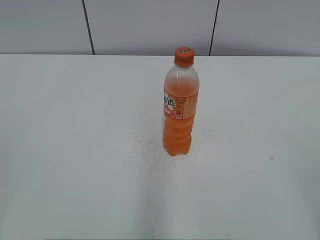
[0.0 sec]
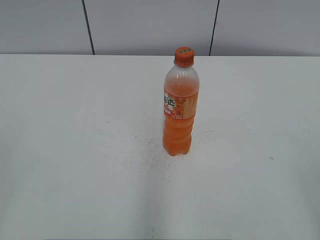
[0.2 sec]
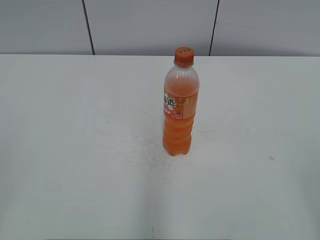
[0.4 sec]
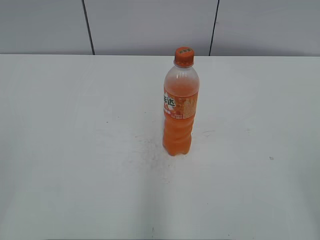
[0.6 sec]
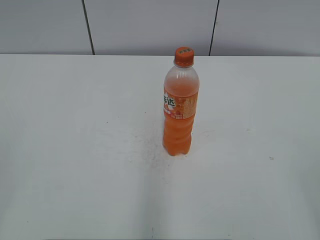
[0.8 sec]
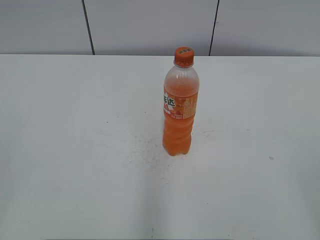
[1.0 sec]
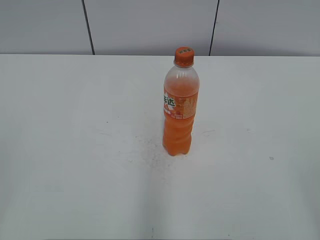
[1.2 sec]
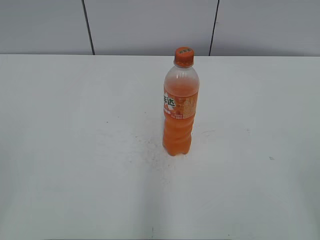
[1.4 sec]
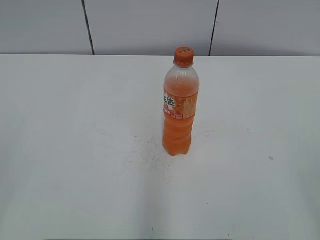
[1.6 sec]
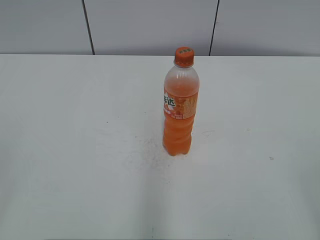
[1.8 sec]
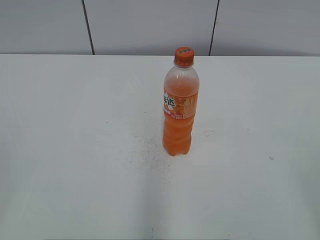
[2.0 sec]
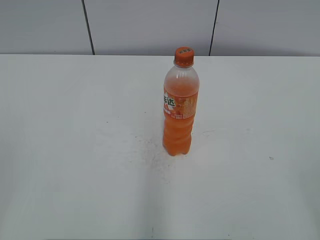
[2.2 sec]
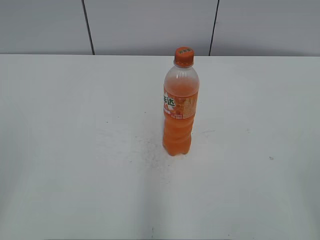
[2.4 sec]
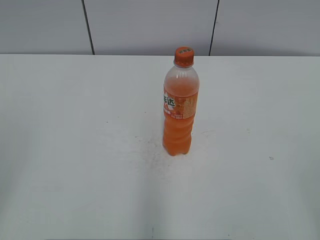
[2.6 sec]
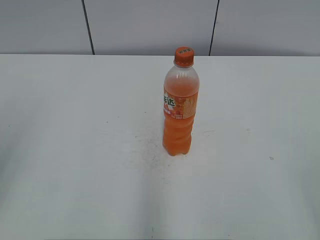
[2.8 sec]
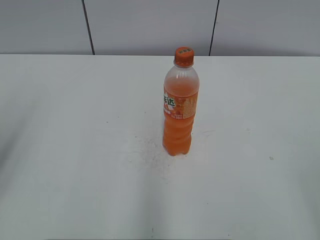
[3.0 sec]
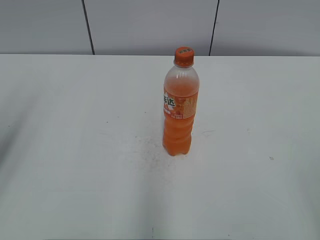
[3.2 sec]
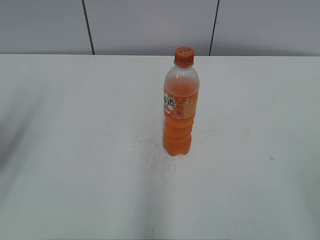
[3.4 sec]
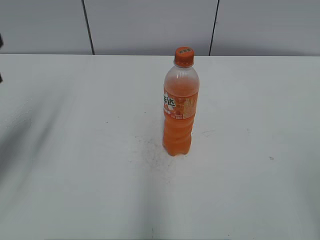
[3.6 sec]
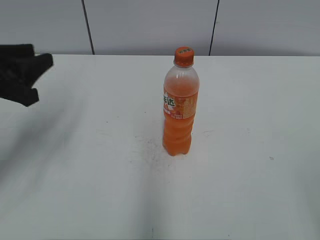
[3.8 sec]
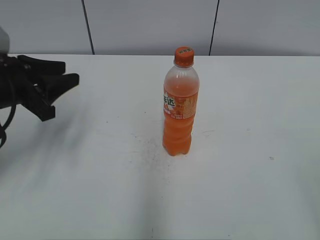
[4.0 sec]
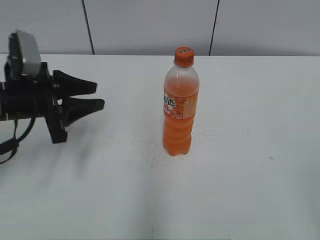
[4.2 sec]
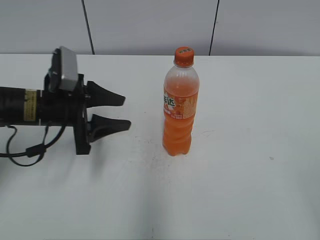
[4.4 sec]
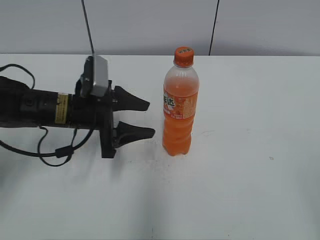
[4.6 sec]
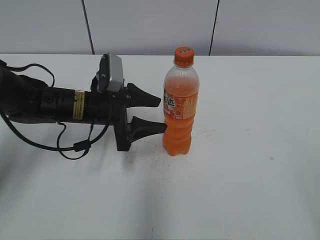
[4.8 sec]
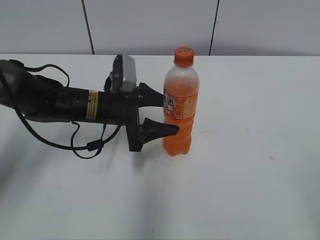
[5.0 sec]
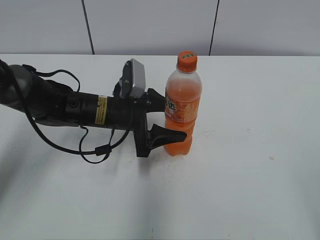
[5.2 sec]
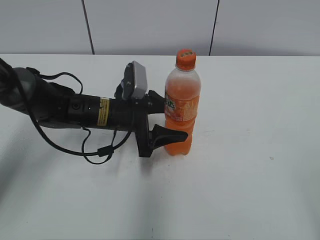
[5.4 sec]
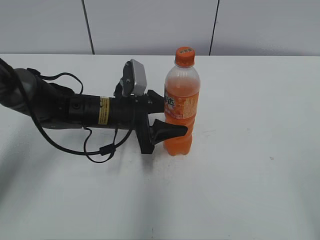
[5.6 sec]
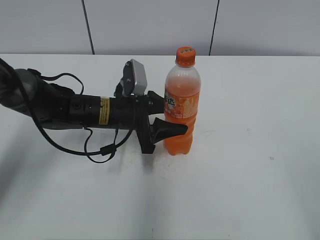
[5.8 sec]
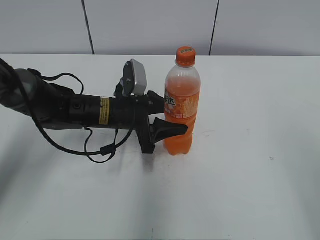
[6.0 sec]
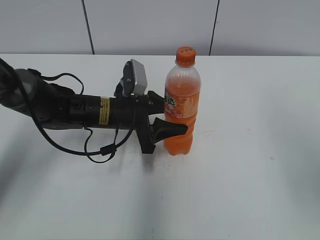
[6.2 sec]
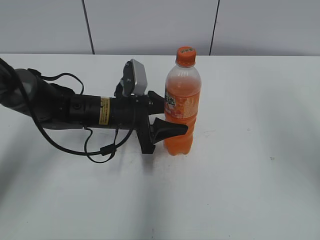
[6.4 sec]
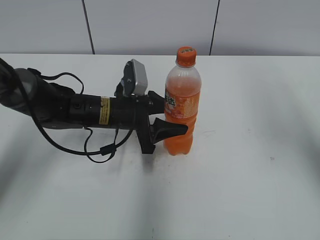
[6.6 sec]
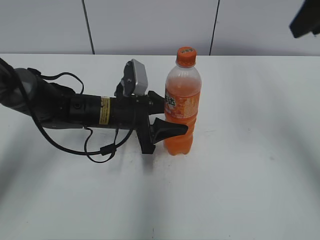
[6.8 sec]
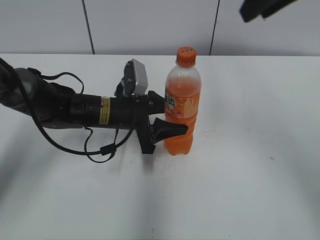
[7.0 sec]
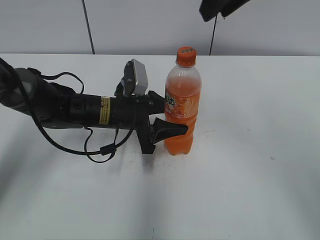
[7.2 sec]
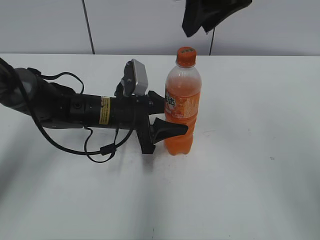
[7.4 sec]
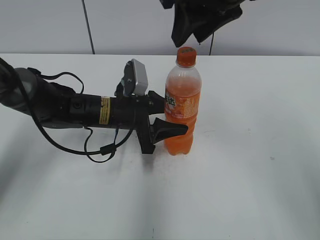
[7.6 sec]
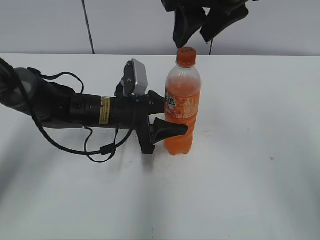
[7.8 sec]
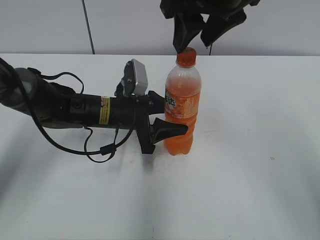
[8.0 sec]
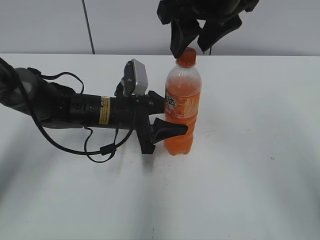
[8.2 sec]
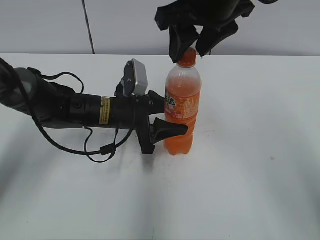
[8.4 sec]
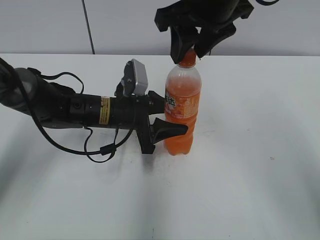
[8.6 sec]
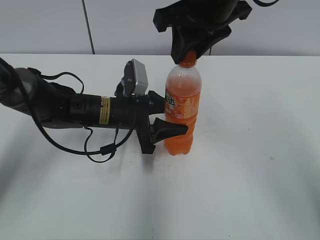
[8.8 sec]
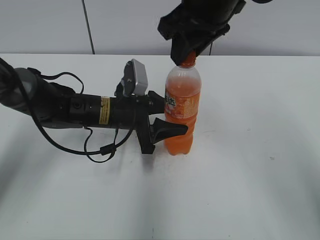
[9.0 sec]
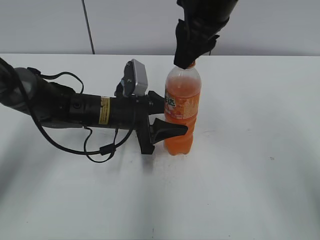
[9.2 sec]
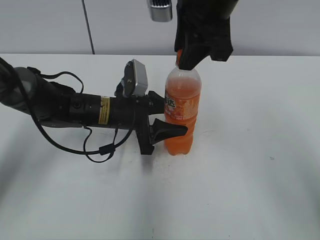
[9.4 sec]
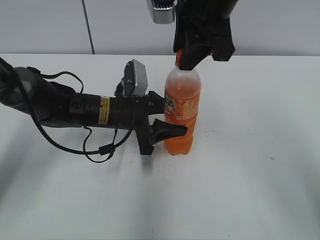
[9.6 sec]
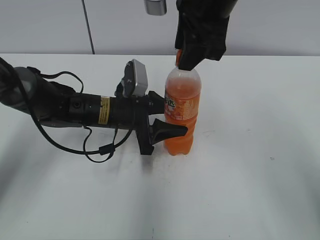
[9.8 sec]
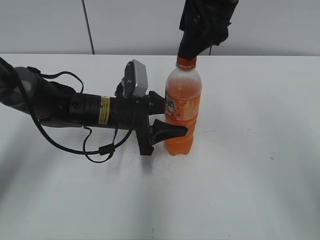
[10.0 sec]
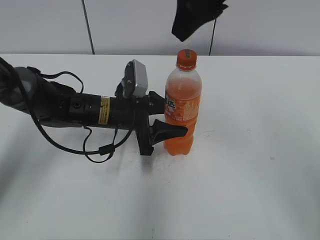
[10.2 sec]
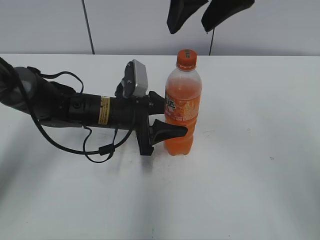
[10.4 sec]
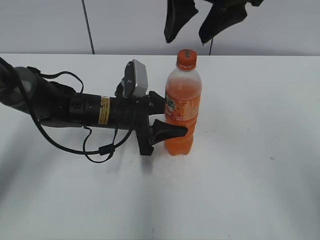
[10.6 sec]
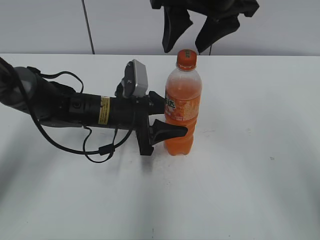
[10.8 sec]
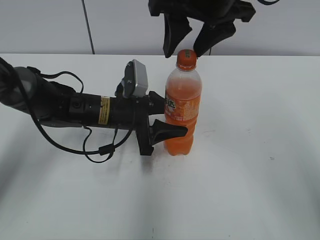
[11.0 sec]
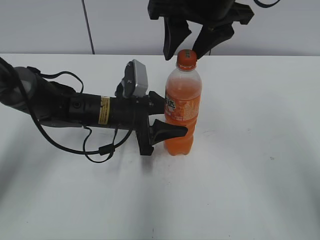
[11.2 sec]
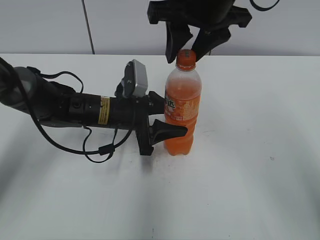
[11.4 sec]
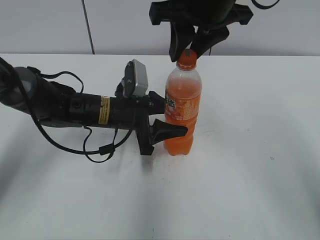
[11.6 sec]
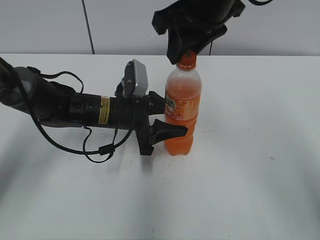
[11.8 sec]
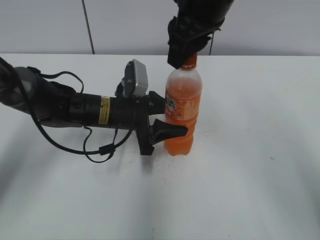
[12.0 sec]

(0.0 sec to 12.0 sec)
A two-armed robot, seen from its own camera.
Step, 0.0 sec - 5.6 sec: Grab the Mirinda with the left hand.
3.0 sec - 4.4 sec: The left gripper heads forward, downward and to the right, covering approximately 25 cm.
4.4 sec - 6.0 sec: The left gripper moves to the right, approximately 10 cm. Meanwhile the right gripper moves some 5 cm, and closes its fingers.
6.0 sec - 7.6 sec: The right gripper moves forward and to the left, about 35 cm.
7.6 sec - 9.0 sec: The right gripper opens and closes again.
9.0 sec - 10.4 sec: The right gripper goes some 5 cm upward, and opens.
10.4 sec - 12.0 sec: The right gripper shifts some 5 cm downward, and closes its fingers.

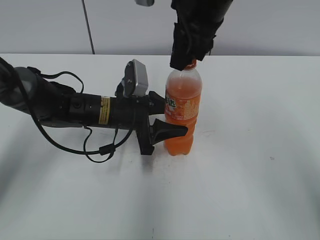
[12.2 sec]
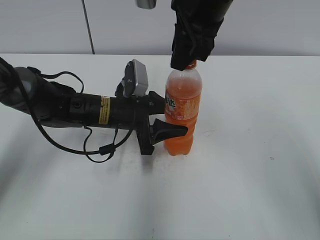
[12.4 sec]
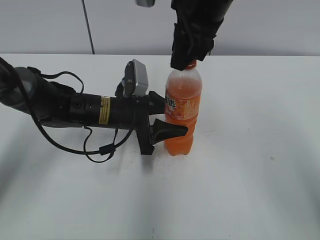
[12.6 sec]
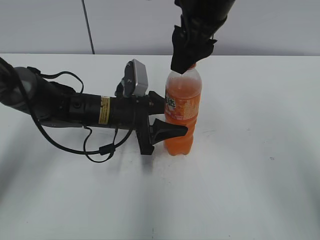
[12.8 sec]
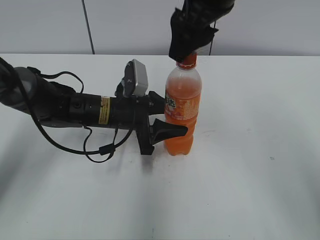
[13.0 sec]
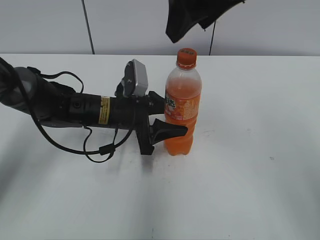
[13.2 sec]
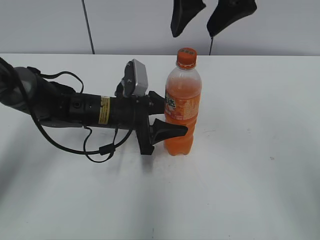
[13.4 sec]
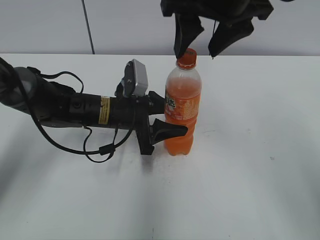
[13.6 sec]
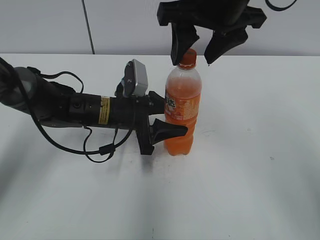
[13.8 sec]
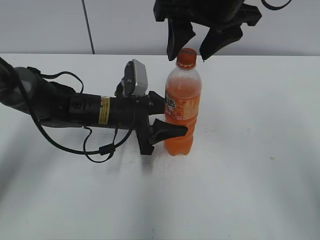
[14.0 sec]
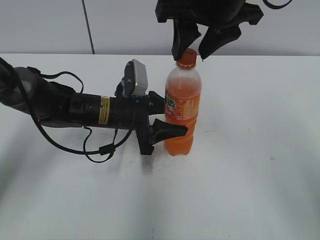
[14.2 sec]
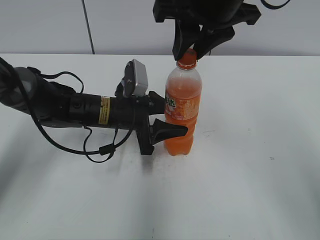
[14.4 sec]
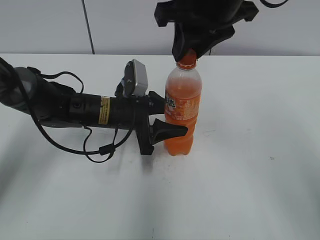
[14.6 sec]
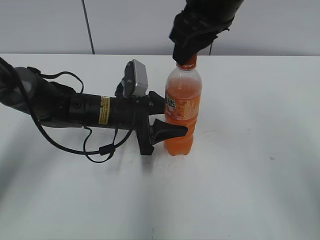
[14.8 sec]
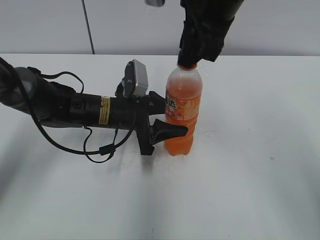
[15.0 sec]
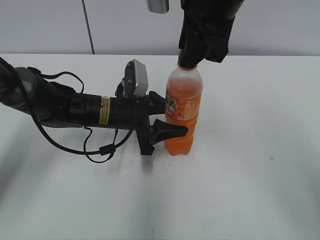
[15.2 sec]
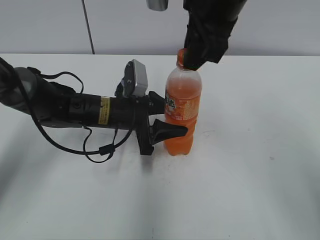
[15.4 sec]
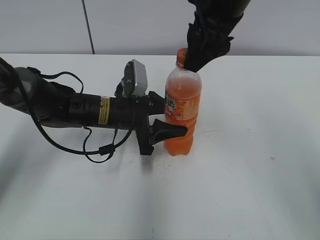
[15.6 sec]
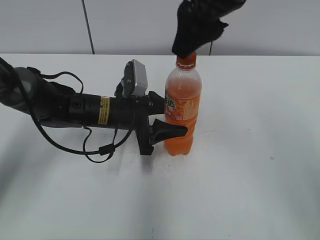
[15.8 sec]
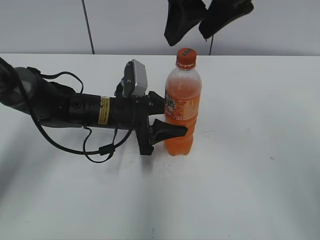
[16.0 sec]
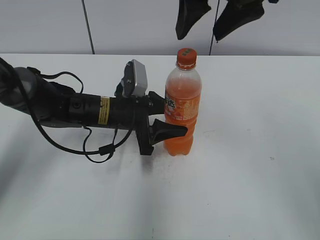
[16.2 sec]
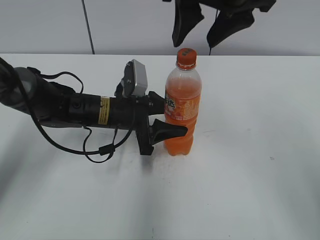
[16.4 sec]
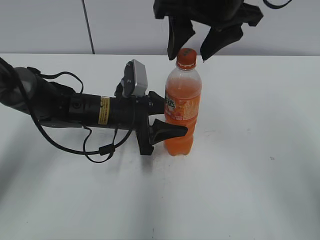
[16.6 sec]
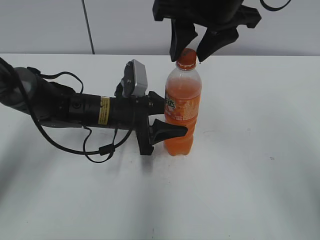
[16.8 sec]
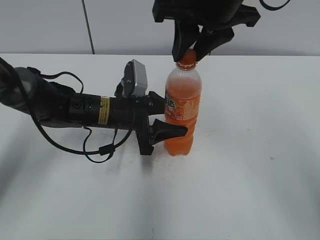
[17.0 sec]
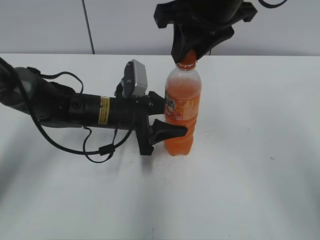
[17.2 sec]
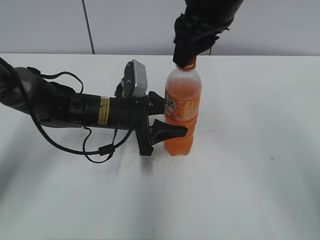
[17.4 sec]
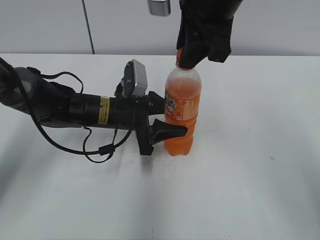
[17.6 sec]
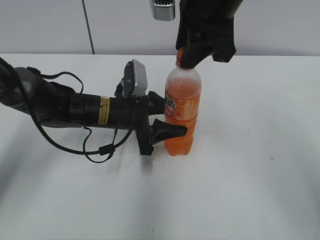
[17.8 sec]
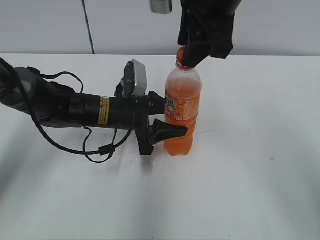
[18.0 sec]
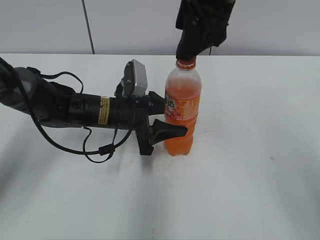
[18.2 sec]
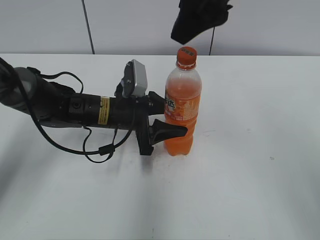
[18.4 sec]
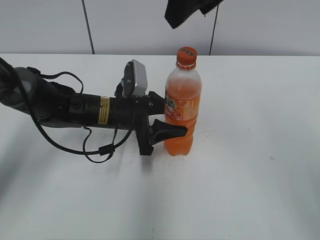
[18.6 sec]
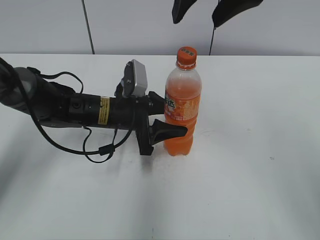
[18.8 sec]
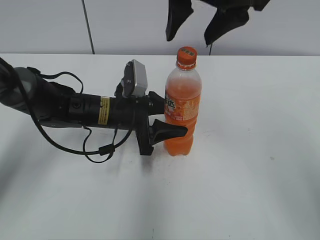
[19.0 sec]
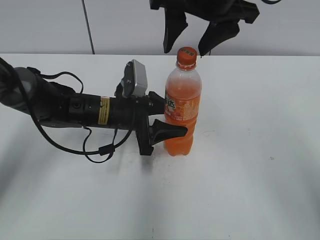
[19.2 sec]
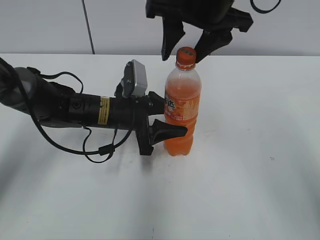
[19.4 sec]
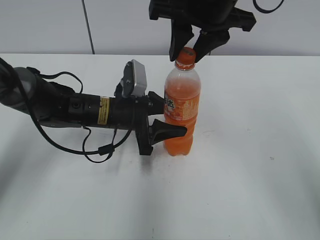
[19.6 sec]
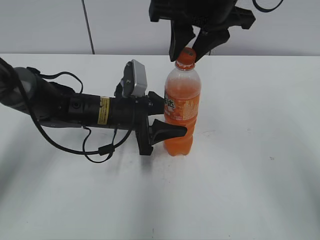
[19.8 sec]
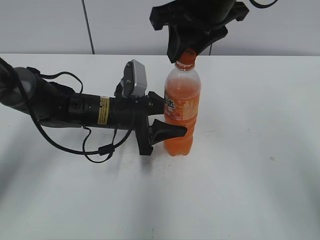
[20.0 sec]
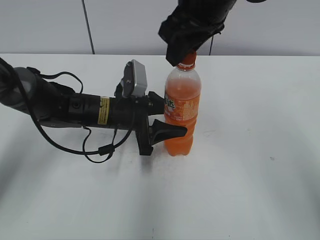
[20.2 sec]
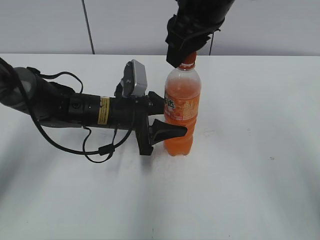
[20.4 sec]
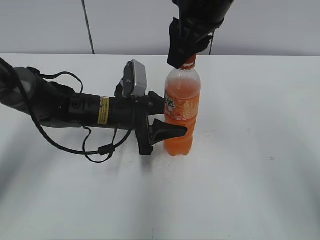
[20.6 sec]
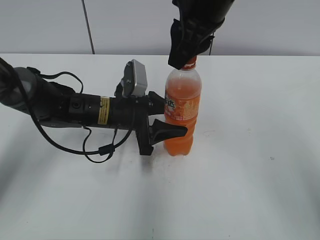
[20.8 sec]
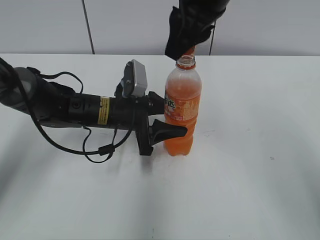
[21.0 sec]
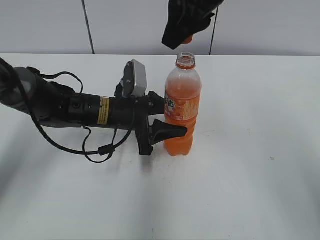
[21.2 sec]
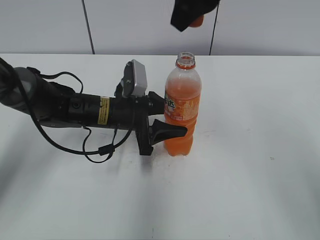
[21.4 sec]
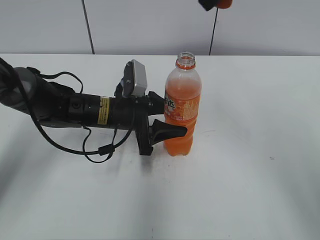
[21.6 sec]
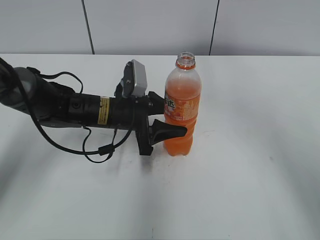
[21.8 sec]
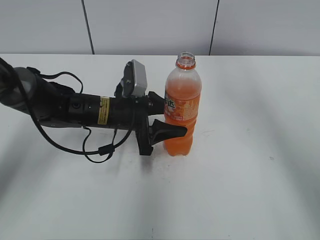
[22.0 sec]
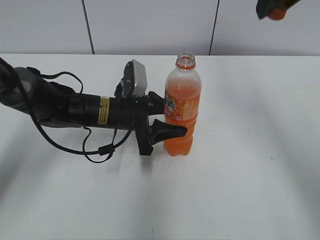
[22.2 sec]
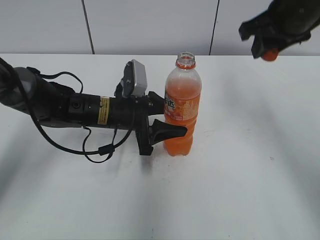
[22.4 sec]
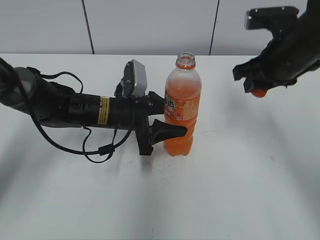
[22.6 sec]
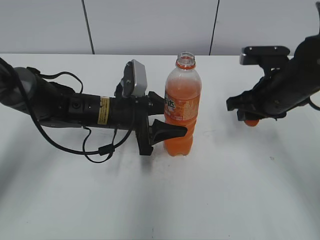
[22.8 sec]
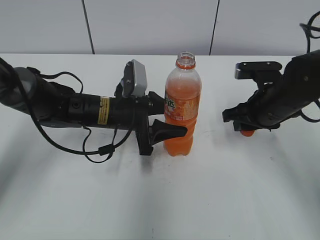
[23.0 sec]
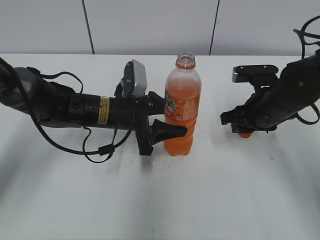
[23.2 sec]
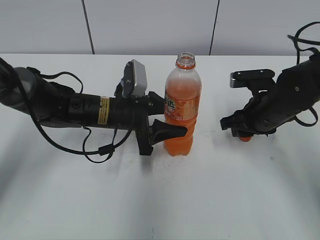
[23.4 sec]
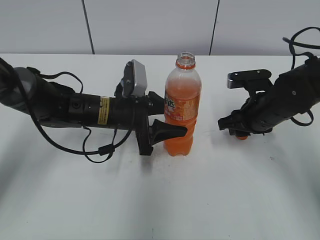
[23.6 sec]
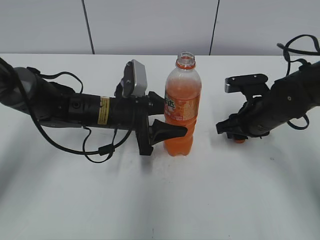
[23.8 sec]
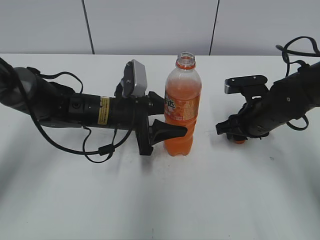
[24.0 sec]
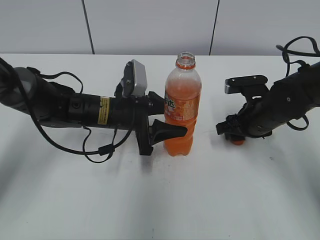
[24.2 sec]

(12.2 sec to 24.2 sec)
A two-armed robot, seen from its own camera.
Step, 12.2 sec - 20.6 sec: Twist the bottle cap with the right hand.
12.2 sec - 13.8 sec: The right gripper opens its fingers.
13.8 sec - 15.2 sec: The right gripper closes its fingers.
15.2 sec - 16.6 sec: The right gripper opens.
16.6 sec - 18.2 sec: The right gripper closes and opens again.
18.2 sec - 19.8 sec: The right gripper closes up.
21.2 sec - 22.6 sec: The right gripper shifts about 20 cm to the right and downward.
22.6 sec - 24.2 sec: The right gripper goes roughly 15 cm downward.
